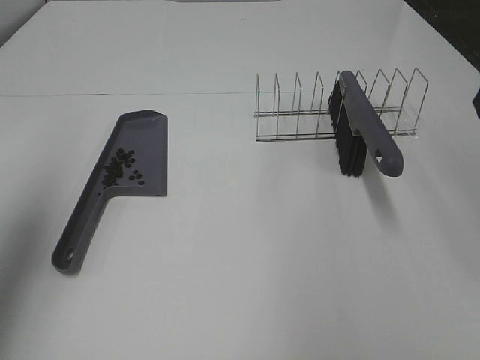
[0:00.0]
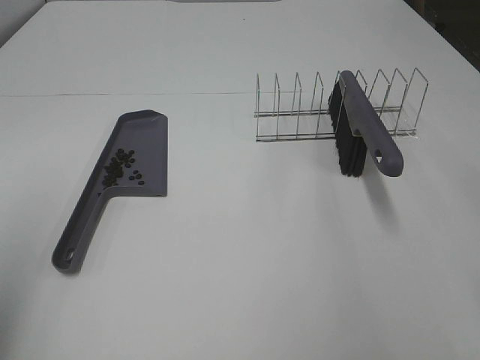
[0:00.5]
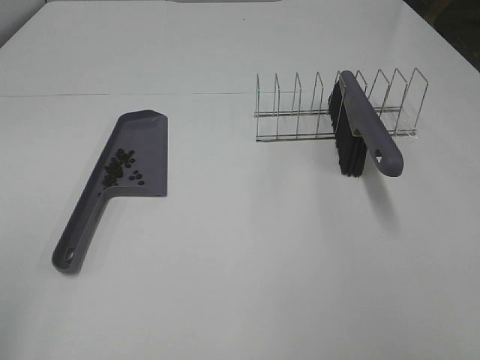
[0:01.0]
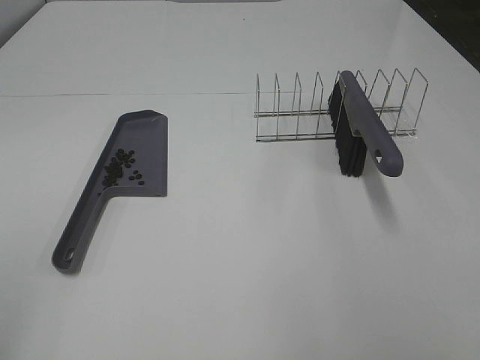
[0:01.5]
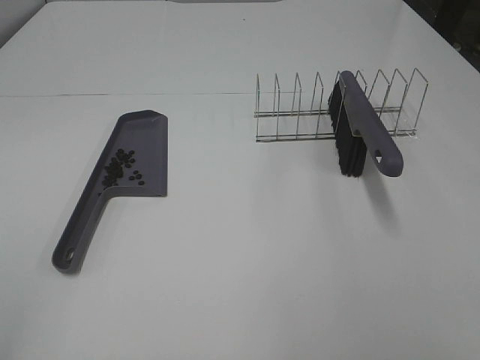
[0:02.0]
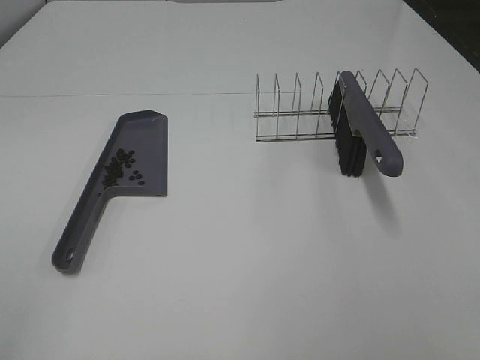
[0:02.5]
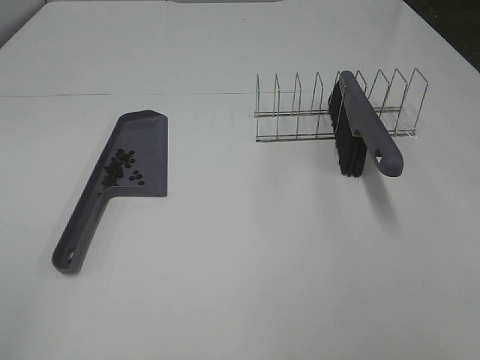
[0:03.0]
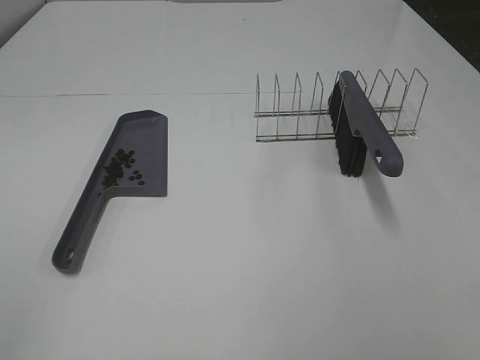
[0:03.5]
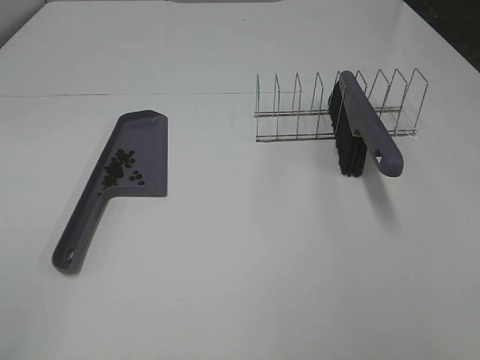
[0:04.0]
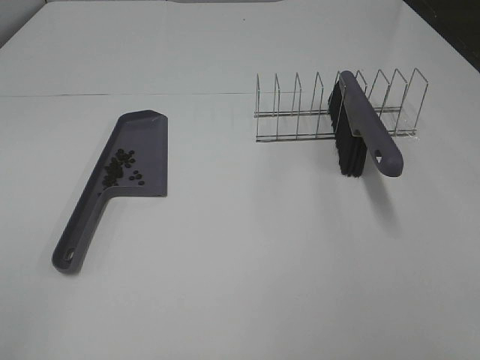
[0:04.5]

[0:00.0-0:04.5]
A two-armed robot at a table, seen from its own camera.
Task of the whole recording: Sweep Coffee Bean.
0:00.0 to 0:02.0: The left gripper goes approximately 10 cm backward.

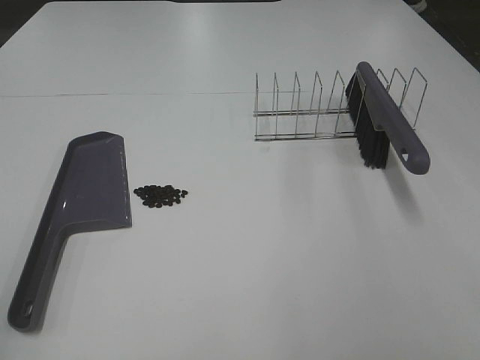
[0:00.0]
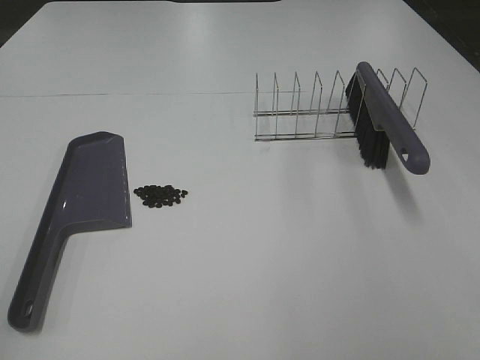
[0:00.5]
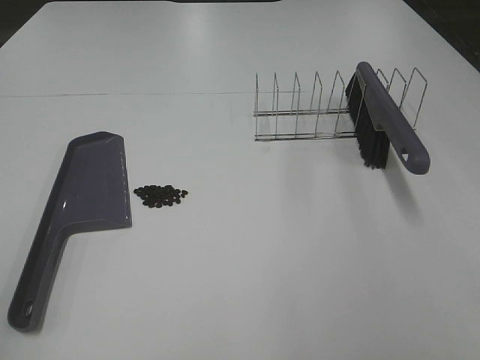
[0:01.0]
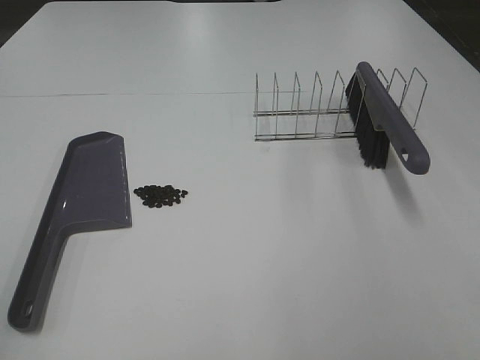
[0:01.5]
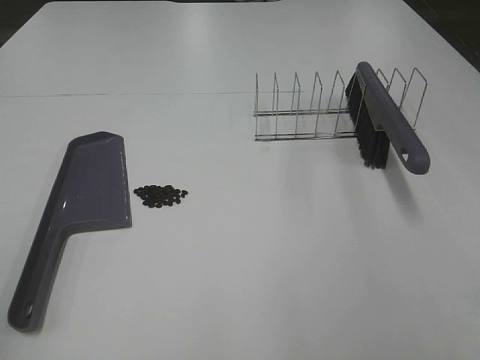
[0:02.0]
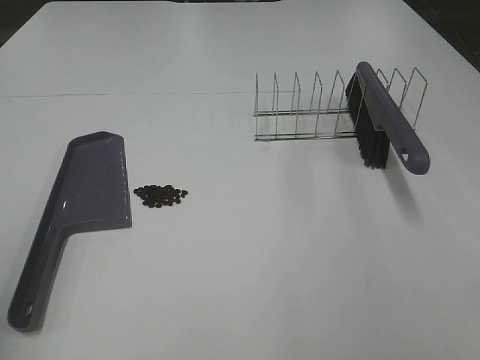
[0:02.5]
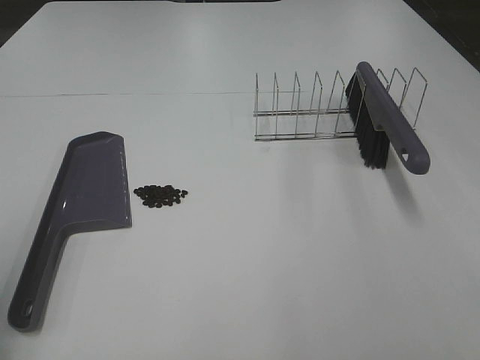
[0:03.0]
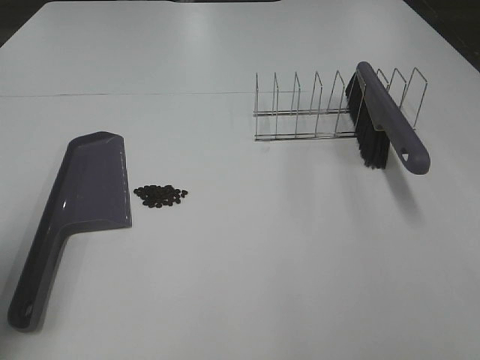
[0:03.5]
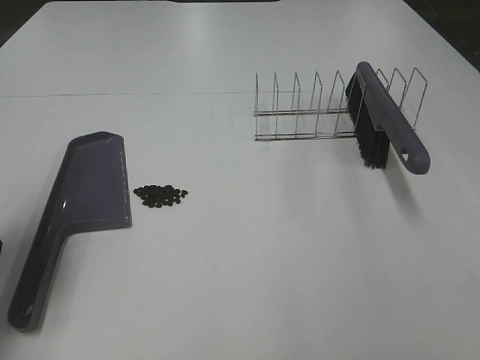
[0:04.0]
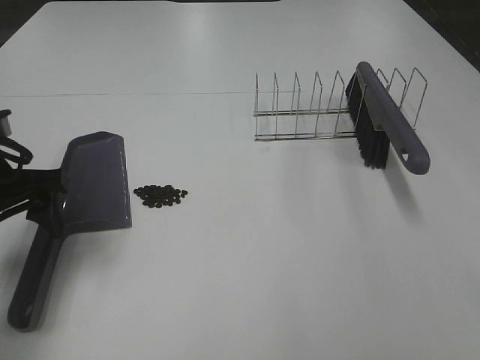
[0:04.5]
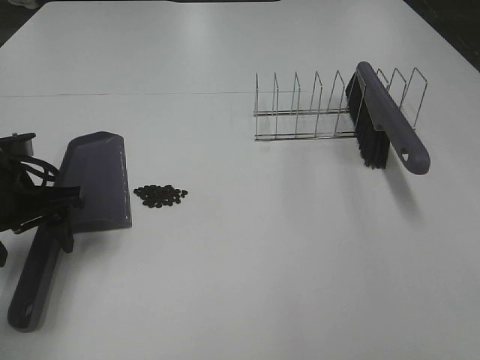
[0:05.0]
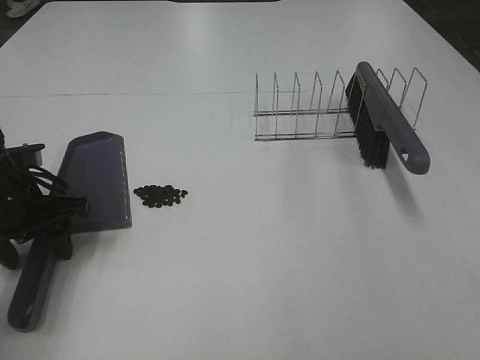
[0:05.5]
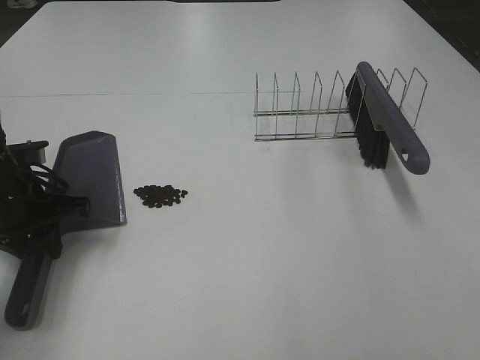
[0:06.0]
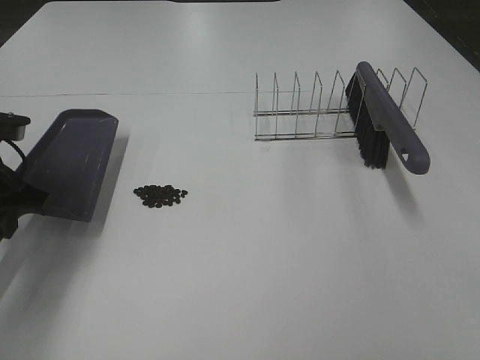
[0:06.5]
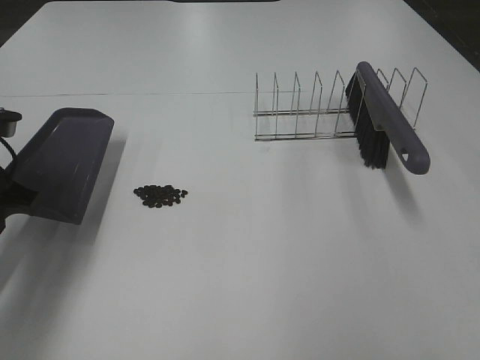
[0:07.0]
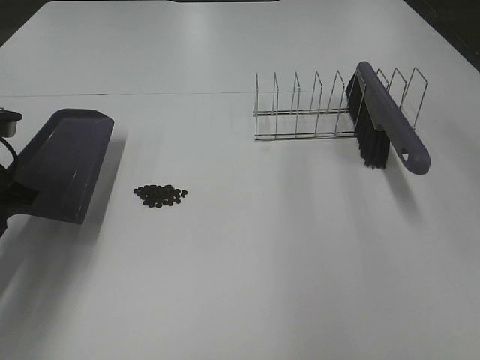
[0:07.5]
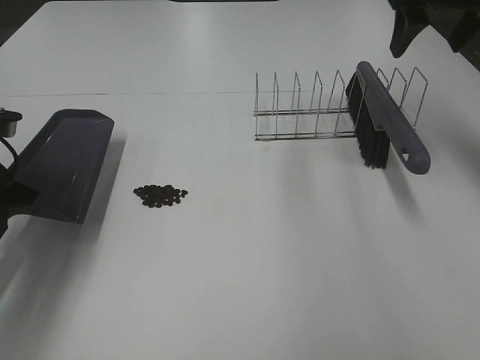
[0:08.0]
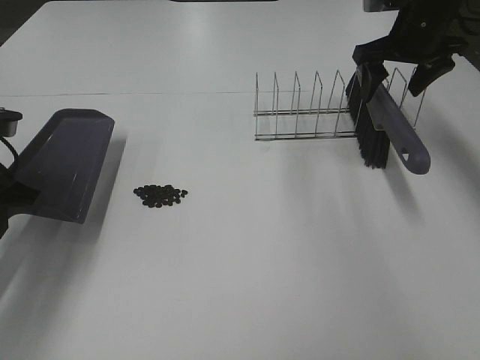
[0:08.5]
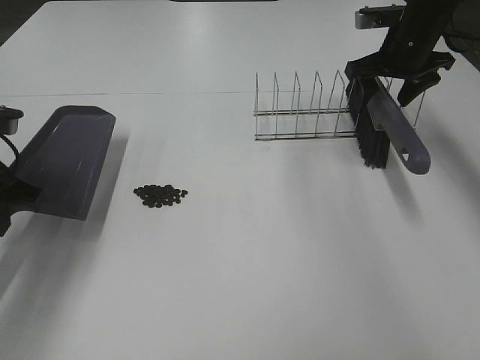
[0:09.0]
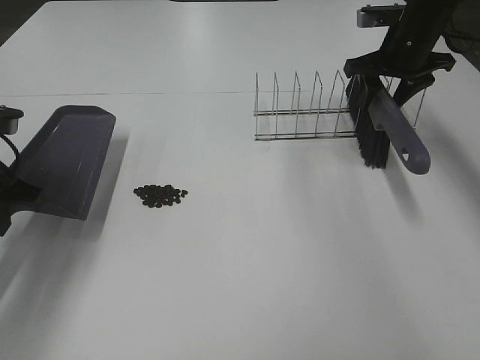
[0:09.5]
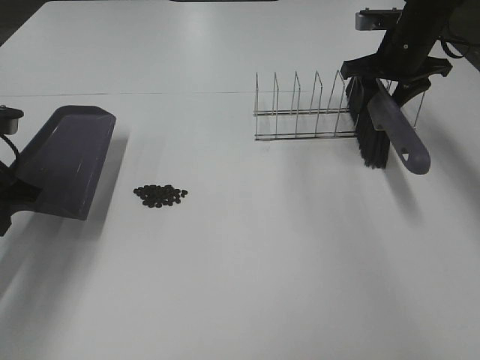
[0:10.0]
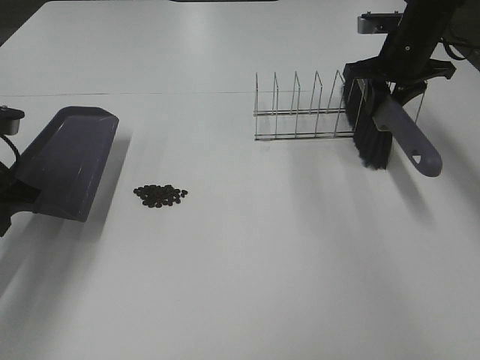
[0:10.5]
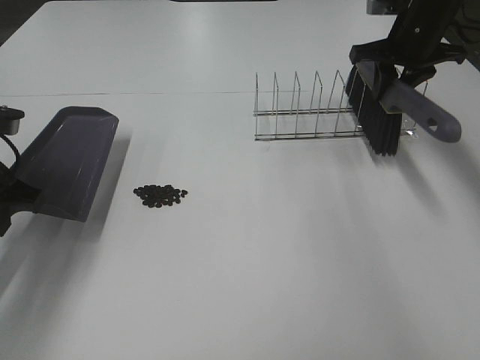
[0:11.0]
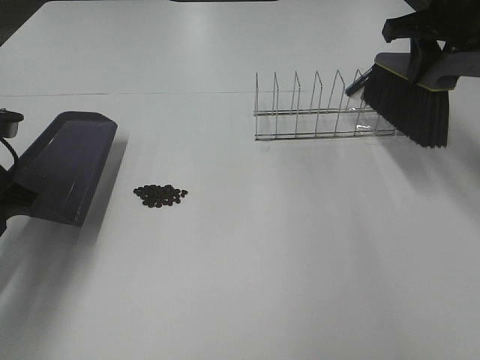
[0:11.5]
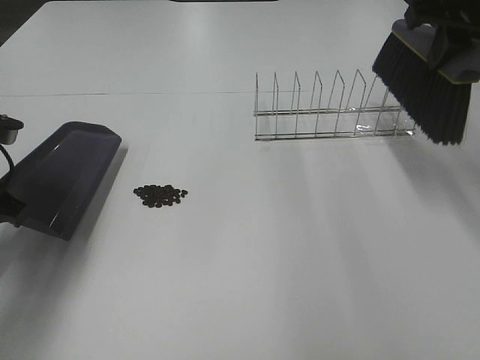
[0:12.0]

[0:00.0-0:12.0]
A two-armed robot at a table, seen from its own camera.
Task of the whole recording: Sweep Coffee Bean.
Step, 0:00.0 to 0:06.0: Left hand: grab the dustpan.
Step, 0:07.0 to 0:10.5: Right hand:grab the broom.
0:02.0 to 0:04.0: The left gripper goes approximately 25 cm forward and downward.
0:04.0 to 0:06.0: The left gripper shifts some 10 cm downward and forward, and closes up.
0:06.0 to 0:08.0: The right gripper heads forward, covering some 40 cm. Meanwhile the left gripper travels upward by about 5 cm.
0:08.0 to 0:10.0: The right gripper shifts about 15 cm downward and forward, and closes its fingers.
0:10.0 to 0:12.0: The right gripper heads backward and upward, covering about 20 cm, and closes its fingers.

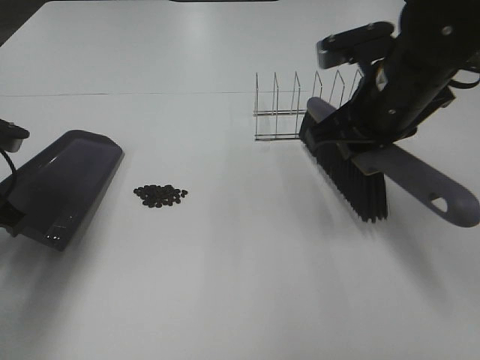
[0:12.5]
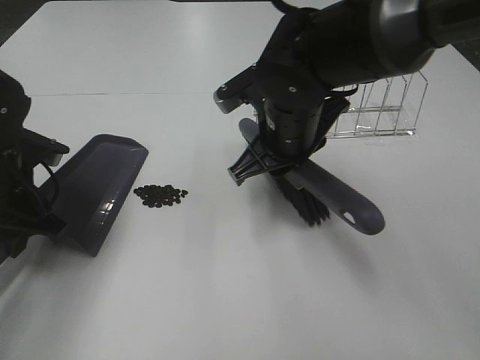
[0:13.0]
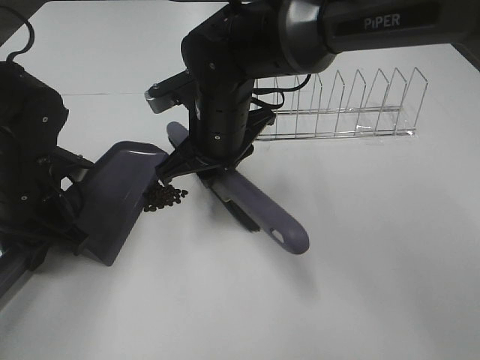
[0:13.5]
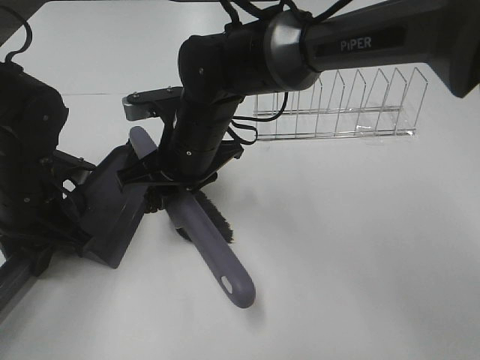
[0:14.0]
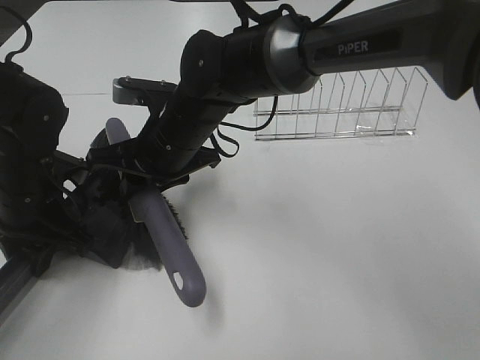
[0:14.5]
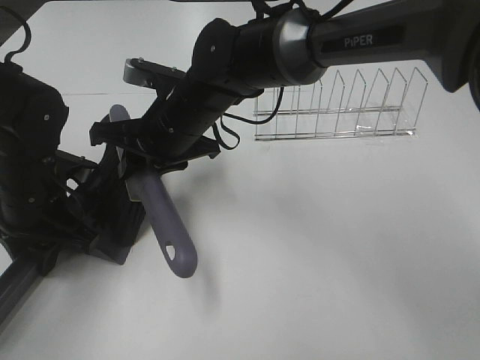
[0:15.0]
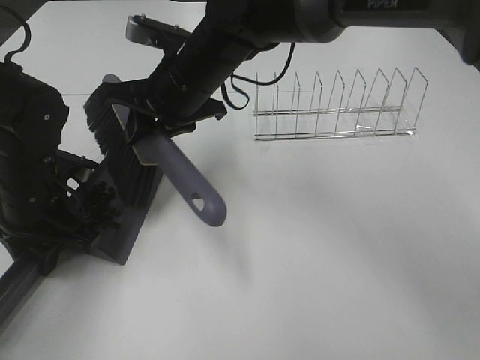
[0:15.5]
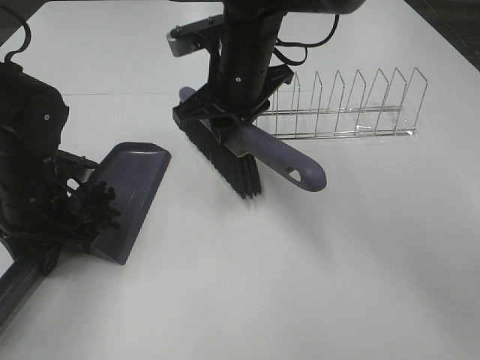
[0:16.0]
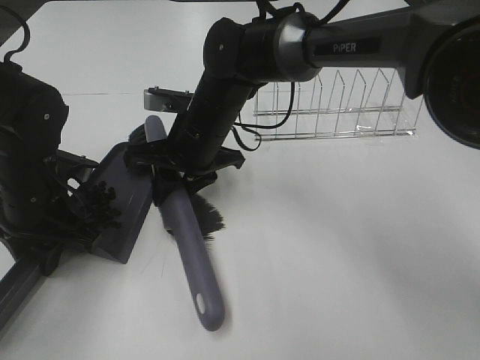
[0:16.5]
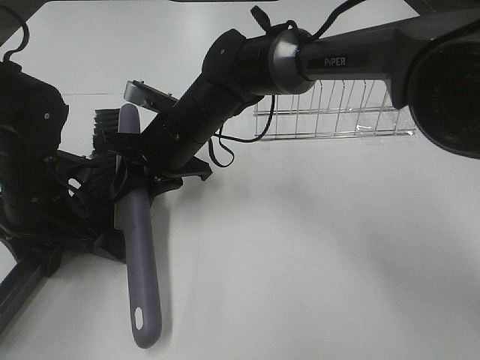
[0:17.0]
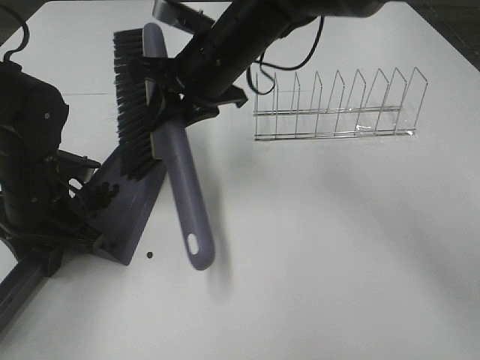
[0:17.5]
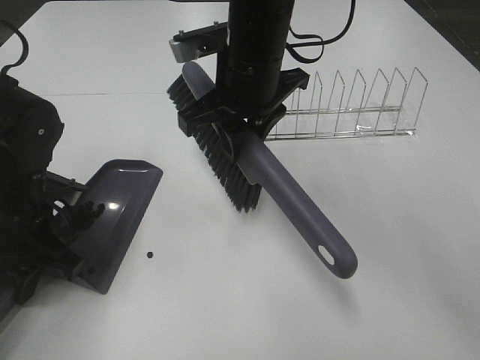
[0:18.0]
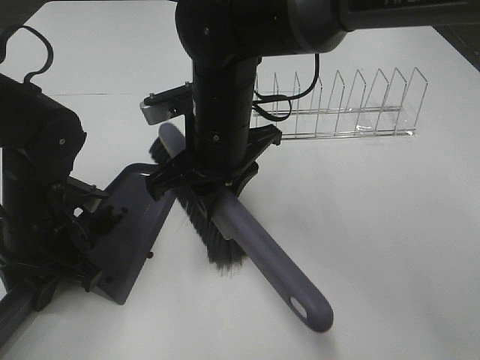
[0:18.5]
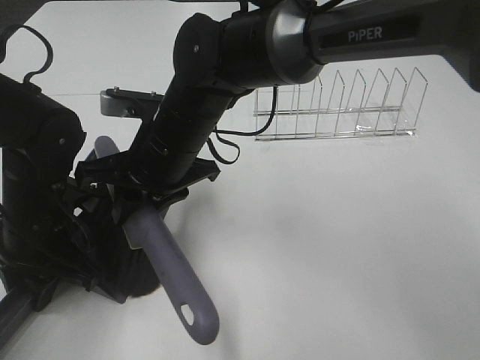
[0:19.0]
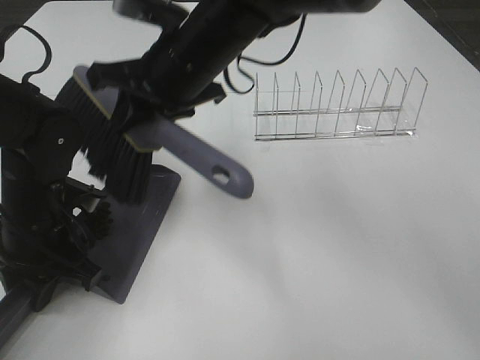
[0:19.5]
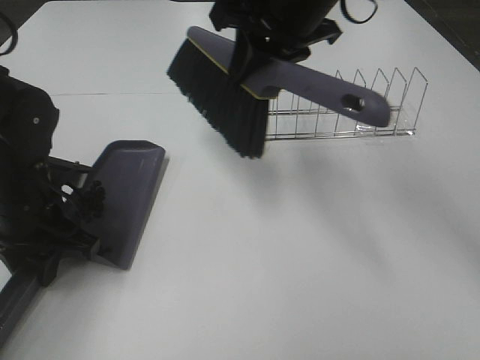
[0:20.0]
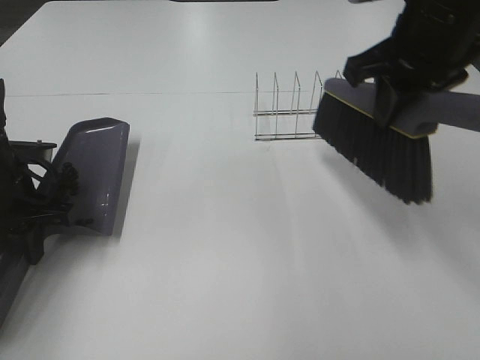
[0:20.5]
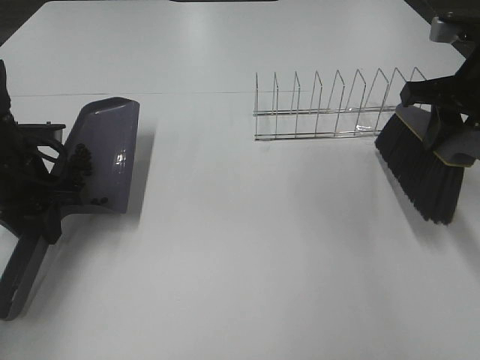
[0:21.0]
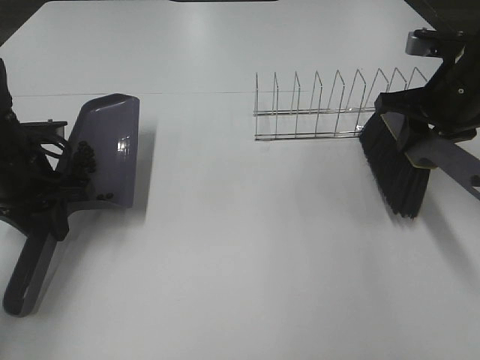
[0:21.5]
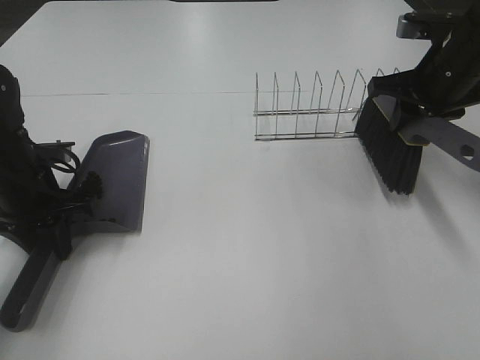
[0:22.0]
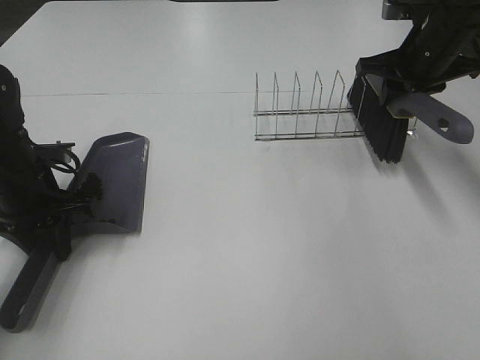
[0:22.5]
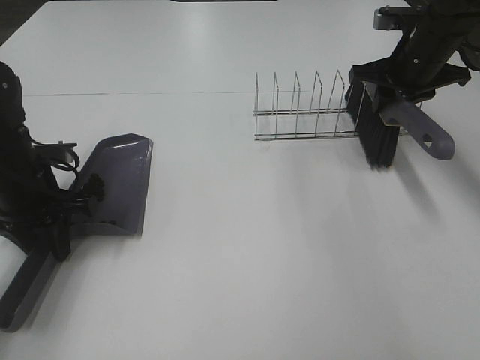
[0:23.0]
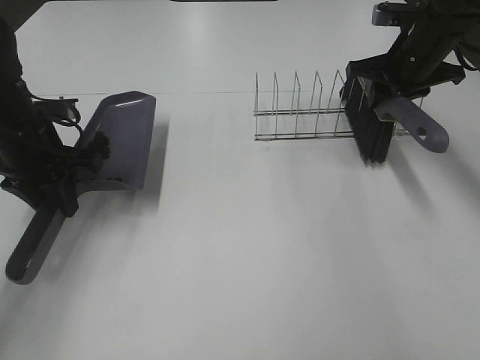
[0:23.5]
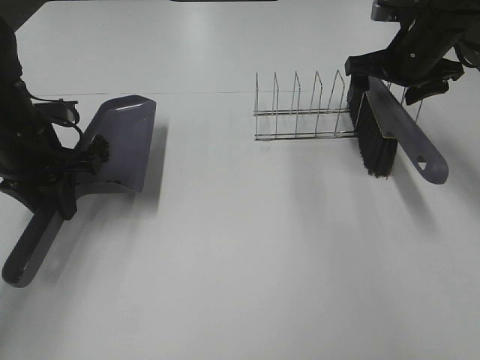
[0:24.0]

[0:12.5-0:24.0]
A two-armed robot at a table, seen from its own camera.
Task of the whole recording: Sweep Coffee Bean.
Step, 0:12.5 to 0:19.5: Right hand:sweep the coffee beans into the dustpan.
Step, 0:20.0 to 0:23.5: Right hand:place the broom on the rack.
0:12.5 to 0:14.5: The right gripper travels to the left by some 20 cm. Meanwhile the left gripper moves to the right and downward, roughly 10 cm.
0:14.5 to 0:16.5: The right gripper reaches about 5 cm upward, then returns.
0:16.5 to 0:18.5: The right gripper heads backward and upward, covering some 10 cm.
0:18.5 to 0:20.0: The right gripper travels upward, to the right and forward by approximately 15 cm.
0:20.0 to 0:22.0: The right gripper heads to the right and downward, covering approximately 20 cm.
0:22.0 to 0:24.0: The left gripper shifts by some 5 cm. The right gripper goes some 5 cm forward, and opens up.
